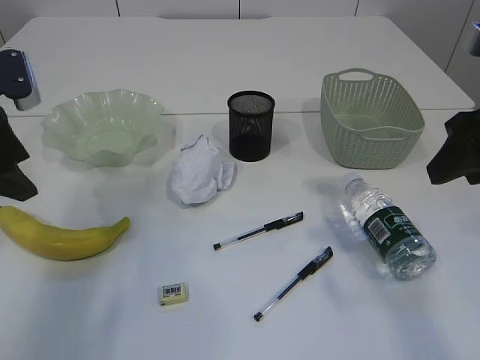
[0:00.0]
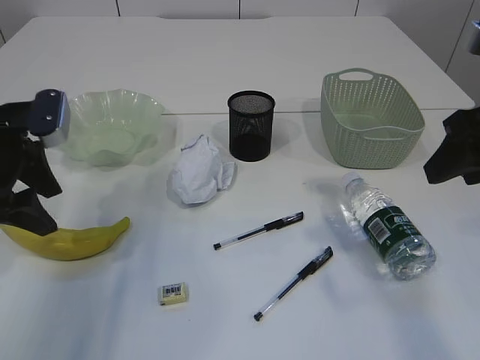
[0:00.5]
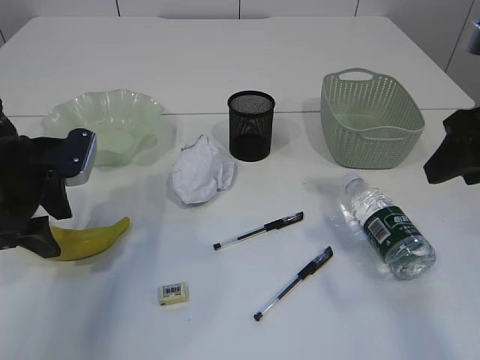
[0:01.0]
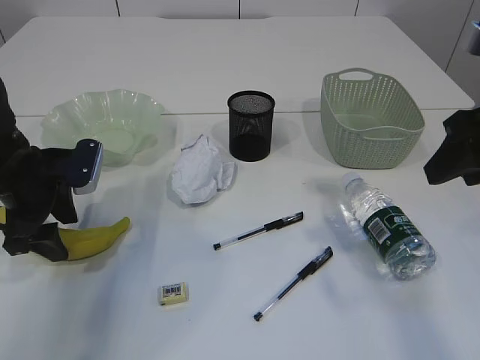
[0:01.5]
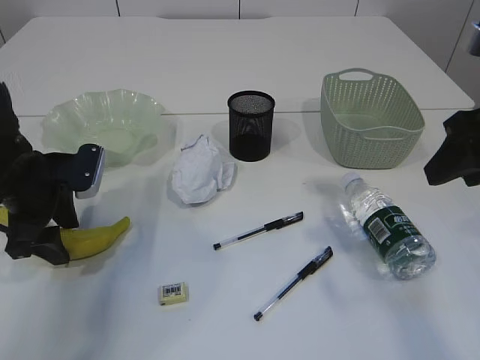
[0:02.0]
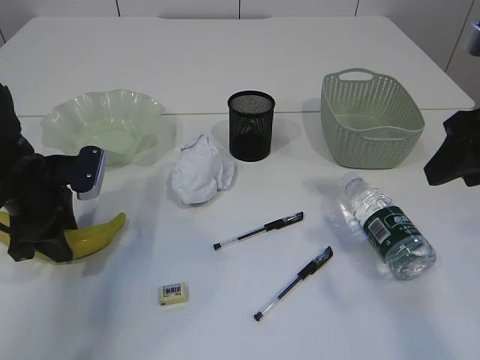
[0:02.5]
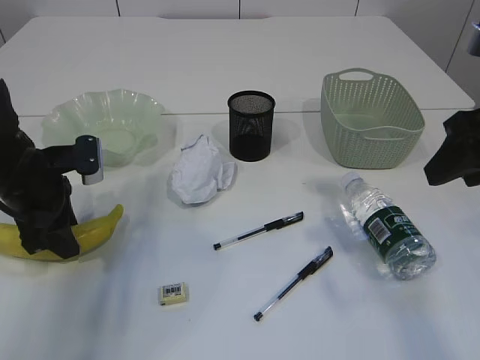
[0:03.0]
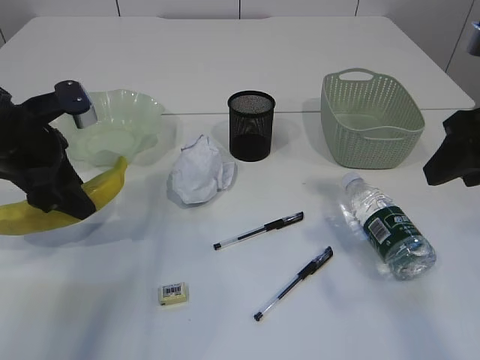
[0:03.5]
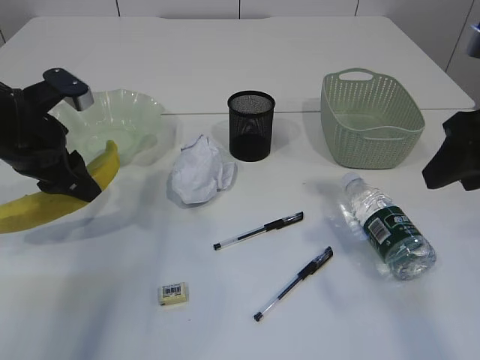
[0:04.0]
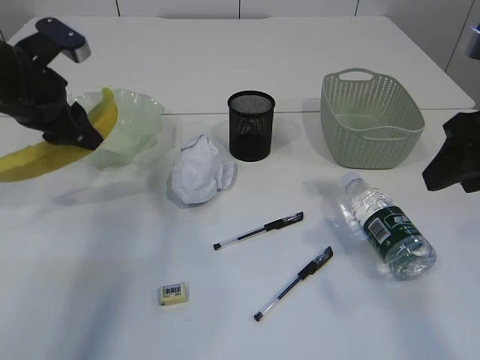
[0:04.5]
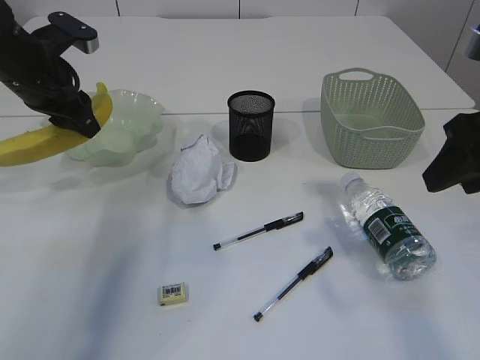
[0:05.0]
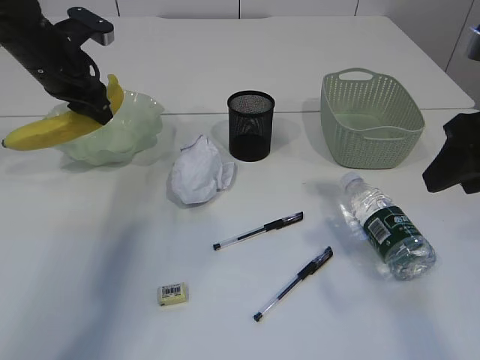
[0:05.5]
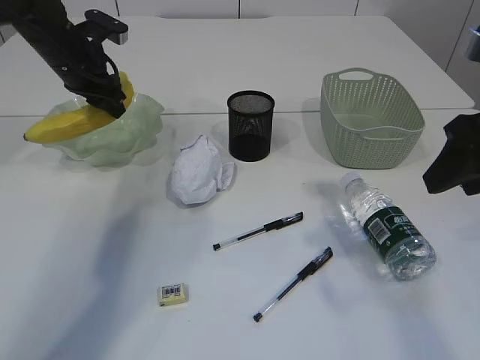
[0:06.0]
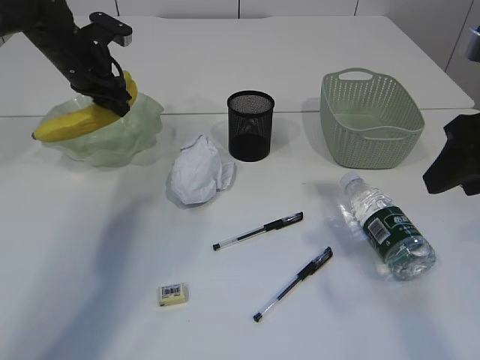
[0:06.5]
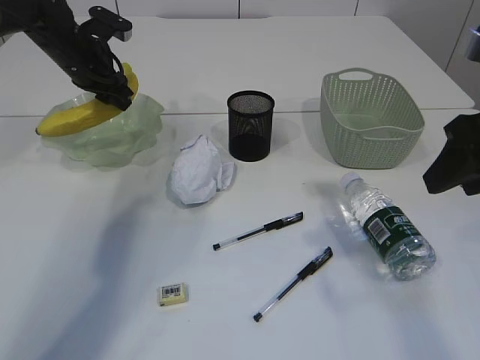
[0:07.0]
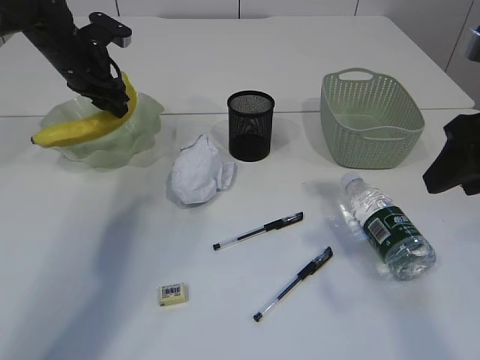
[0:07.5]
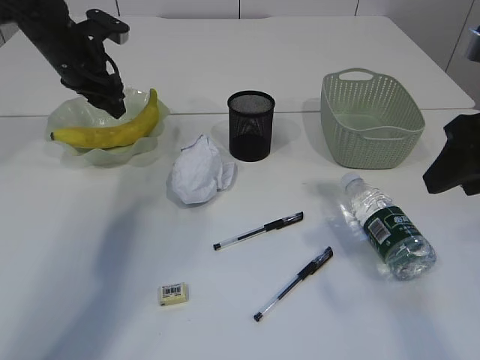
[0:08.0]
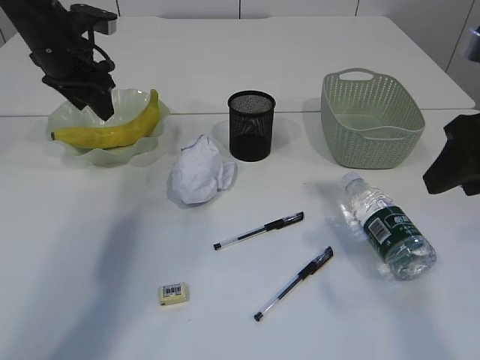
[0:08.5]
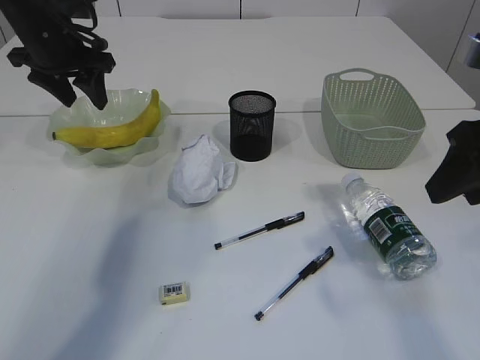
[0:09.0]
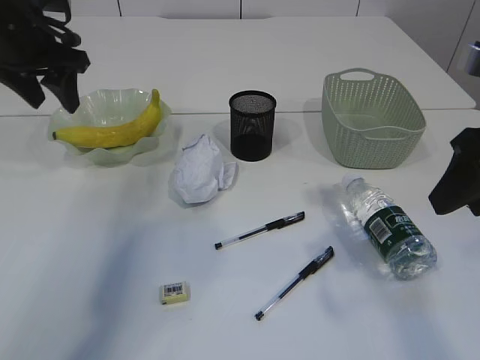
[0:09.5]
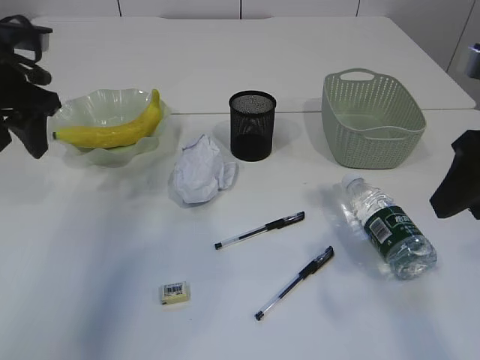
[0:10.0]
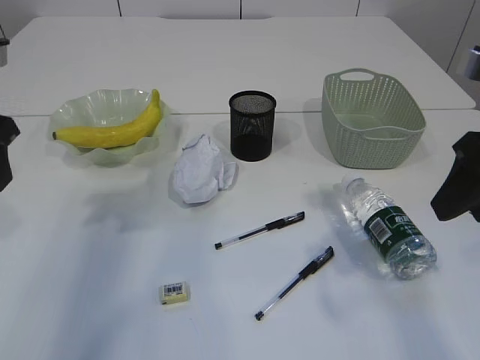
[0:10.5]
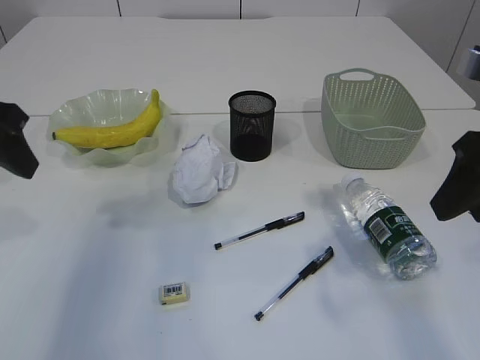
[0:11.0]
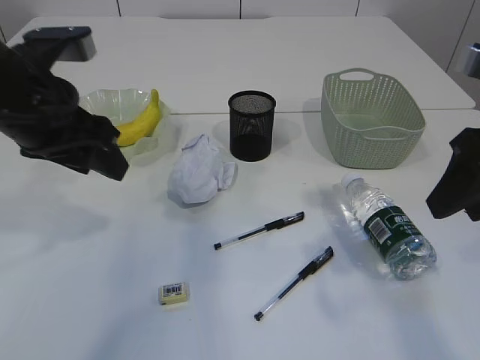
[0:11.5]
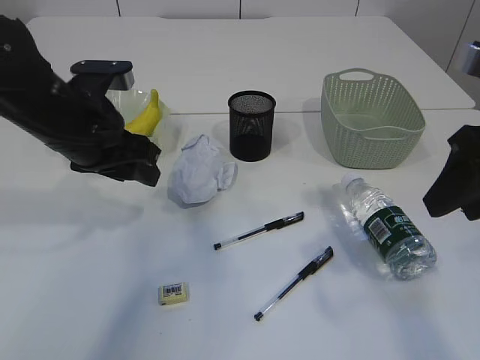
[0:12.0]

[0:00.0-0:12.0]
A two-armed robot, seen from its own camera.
Step, 0:04.5 to 0:09.0: Place the banana in the plate.
0:00.0 to 0:02.0: The left gripper heads downward, covering roughly 10 cm.
0:02.0 to 0:04.0: The left gripper goes approximately 5 cm upward.
0:04.0 to 0:06.0: The left gripper heads forward, covering about 15 cm.
0:06.0 to 0:08.0: The grippers move only a little.
0:08.0 to 0:10.0: The left gripper heads backward and upward, covering some 15 cm.
0:10.0 to 0:12.0: The left gripper heads to the right, downward and backward, covering roughly 10 cm.

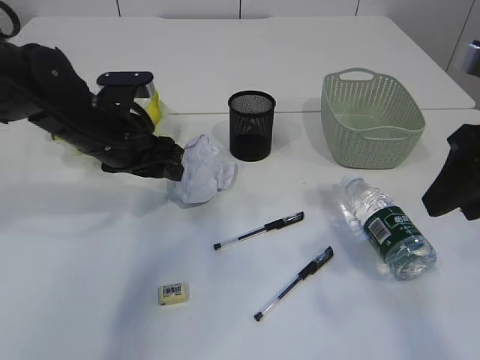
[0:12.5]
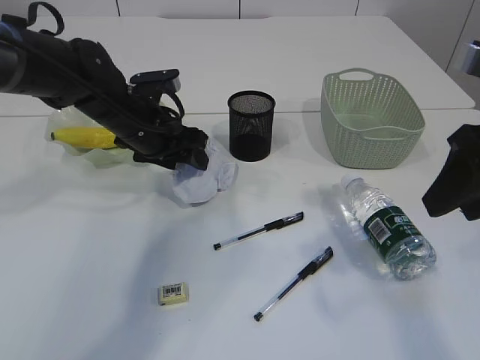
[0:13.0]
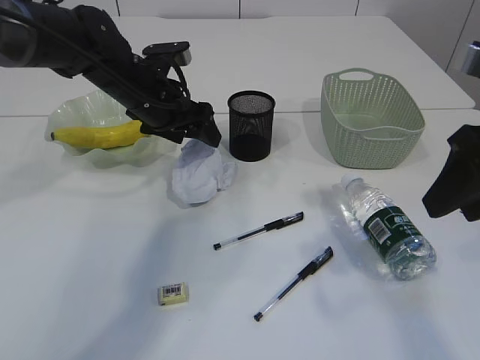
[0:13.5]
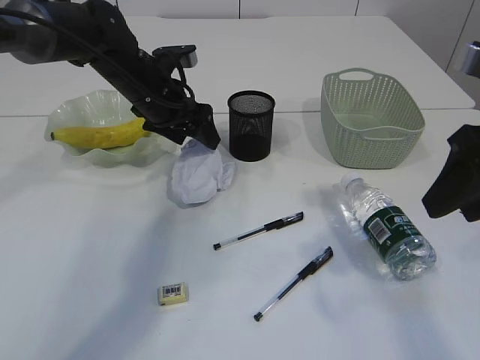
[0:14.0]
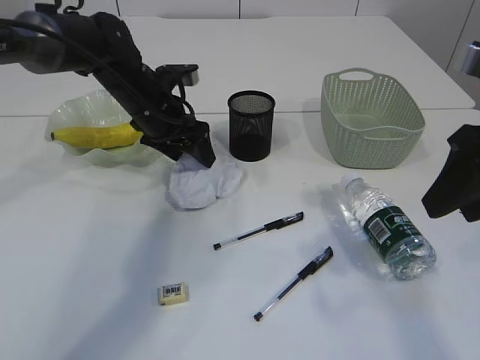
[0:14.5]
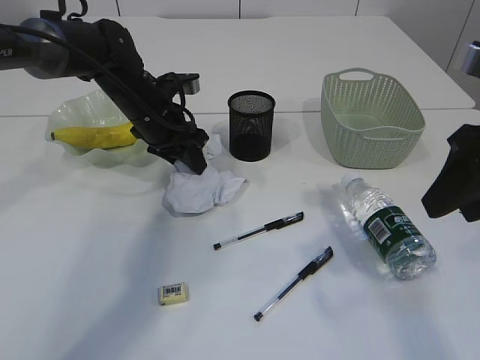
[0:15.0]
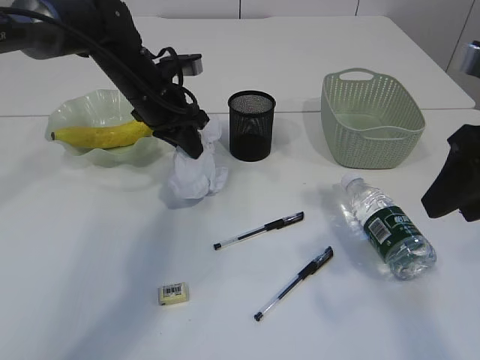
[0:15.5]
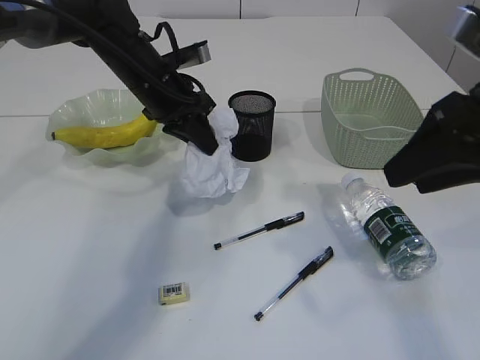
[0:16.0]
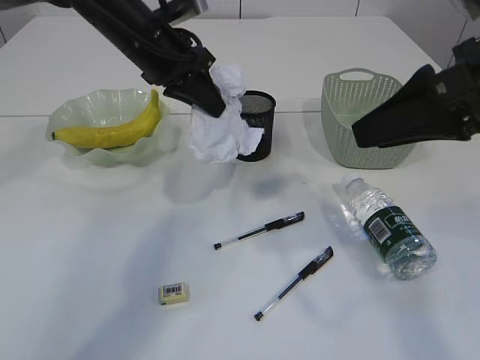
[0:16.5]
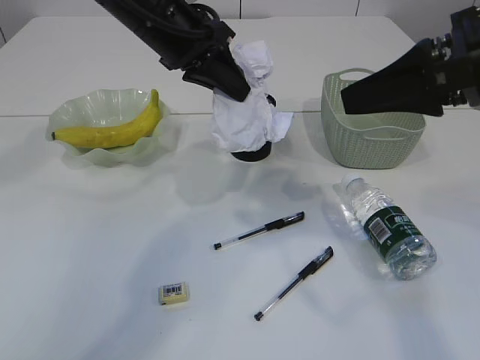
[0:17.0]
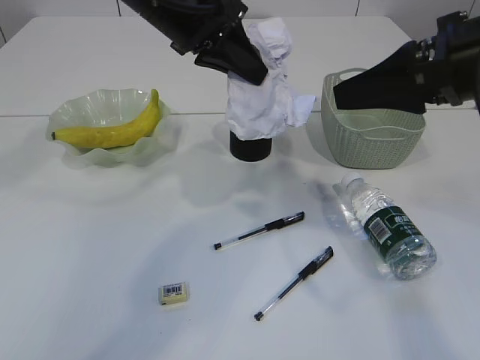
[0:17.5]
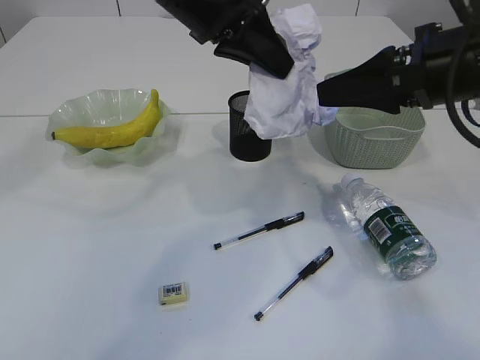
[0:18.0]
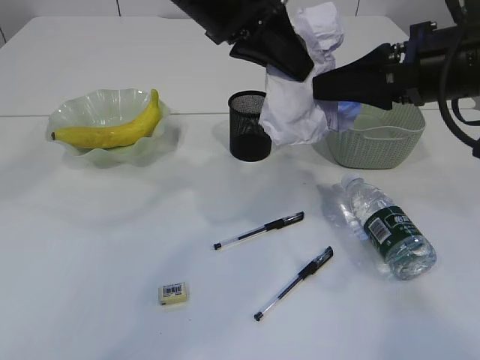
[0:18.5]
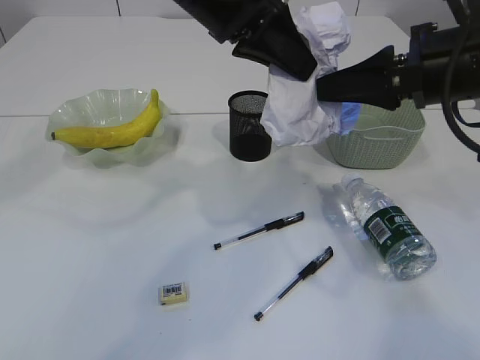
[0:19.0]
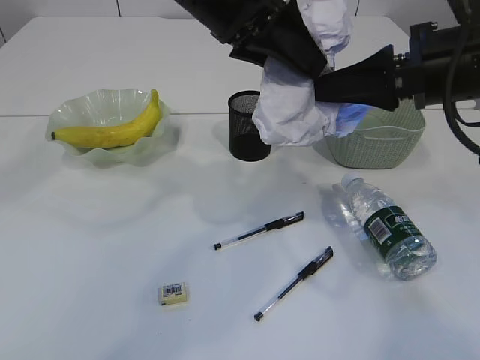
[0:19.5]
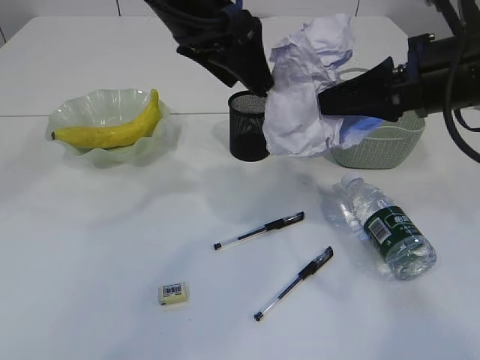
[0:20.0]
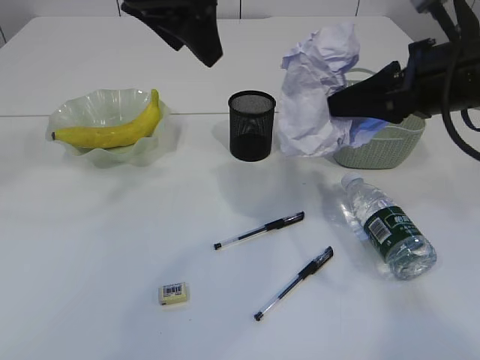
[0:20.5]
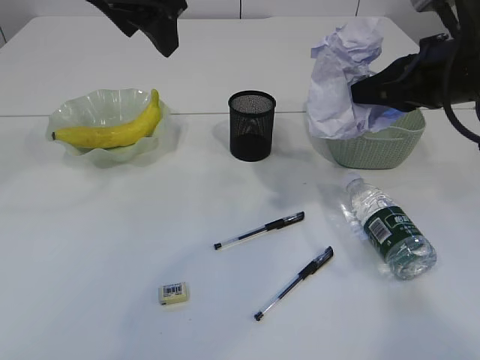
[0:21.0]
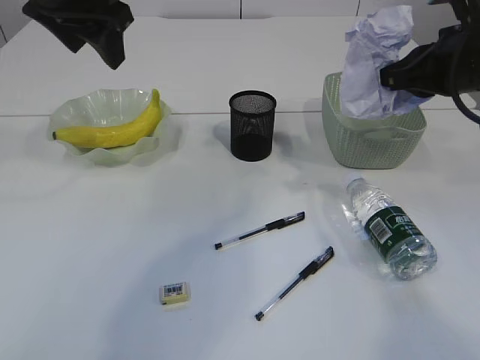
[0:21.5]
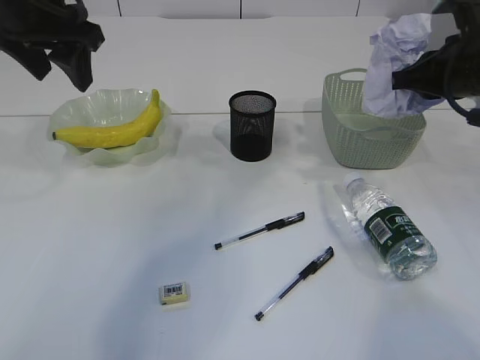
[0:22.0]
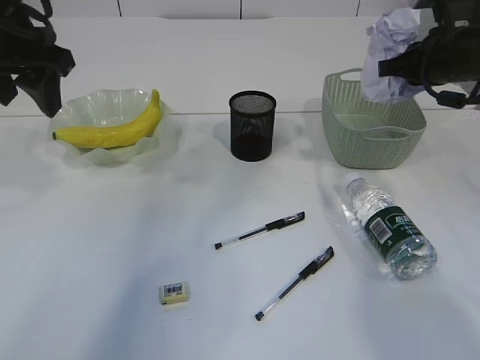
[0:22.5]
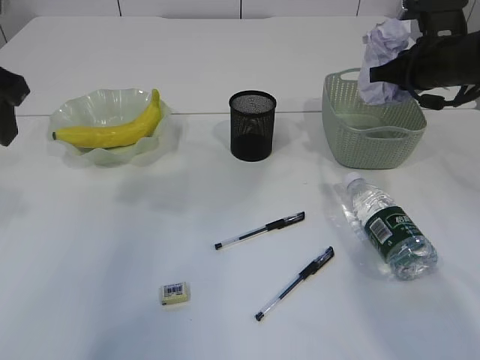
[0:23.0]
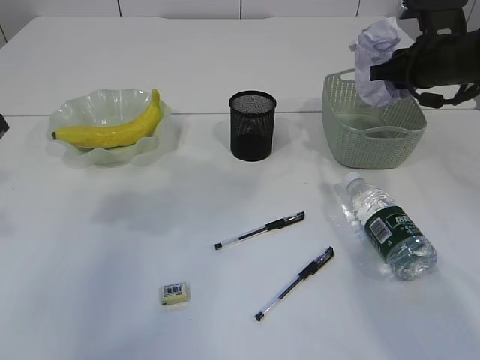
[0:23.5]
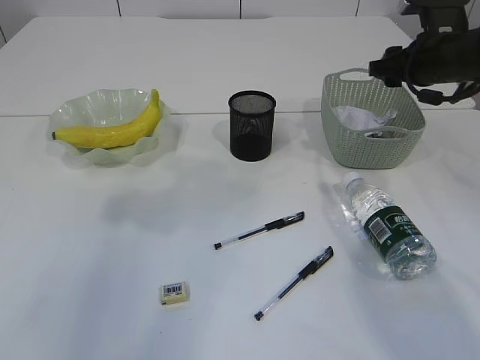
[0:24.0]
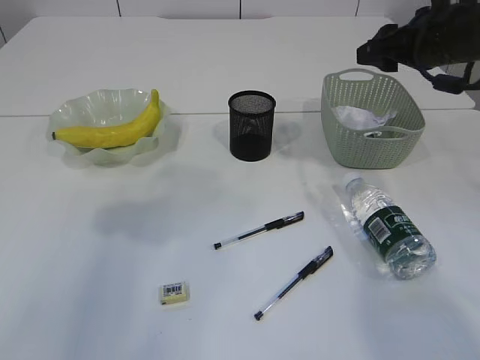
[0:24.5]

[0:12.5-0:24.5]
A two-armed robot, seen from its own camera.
Step, 0:12.5 to 0:16.0: Pick up the waste paper.
Step, 0:16.5 to 0:20.5: Hand over the waste paper.
0:12.5 to 0:14.5: The left gripper moves forward, about 10 cm.
0:14.5 to 0:16.5: The left gripper shifts about 10 cm upward, and closes up.
0:16.5 to 0:18.5: The right gripper travels forward by approximately 5 cm. Meanwhile the left gripper goes approximately 15 cm upward, to the right and backward.
0:18.5 to 0:20.5: The right gripper closes; the left gripper travels to the left by approximately 5 cm, and opens.
0:20.5 to 0:22.5: The left gripper heads to the left, covering roughly 15 cm; the right gripper travels forward and to the right by roughly 10 cm.
0:22.5 to 0:24.5: The right gripper opens, while the left gripper shifts some 10 cm backward.

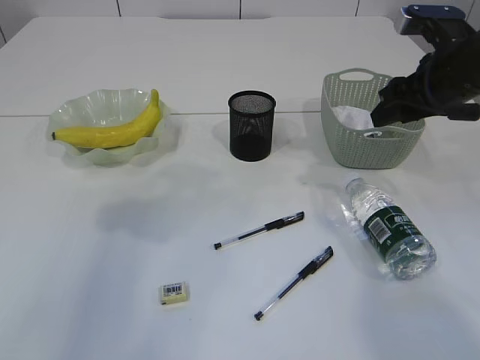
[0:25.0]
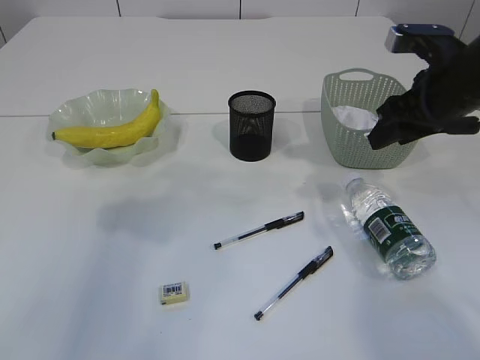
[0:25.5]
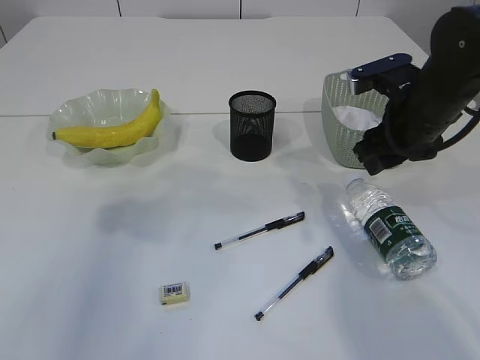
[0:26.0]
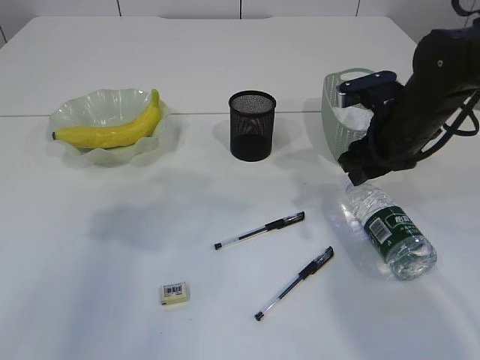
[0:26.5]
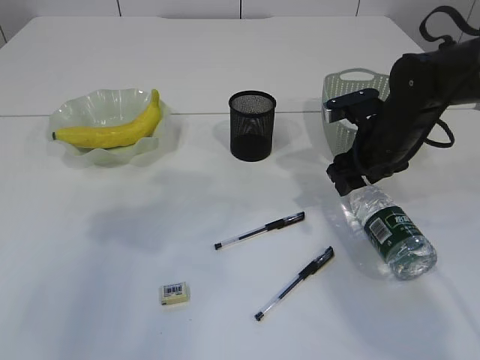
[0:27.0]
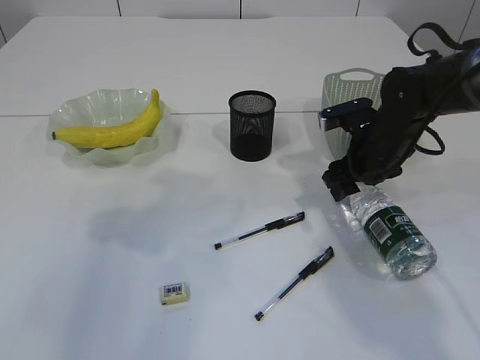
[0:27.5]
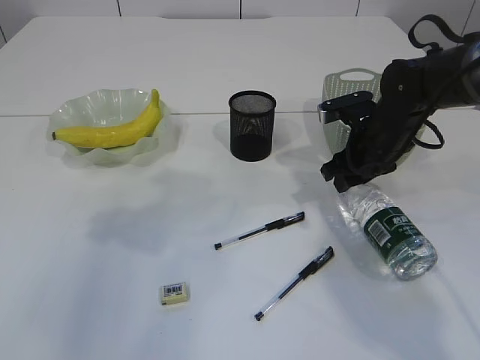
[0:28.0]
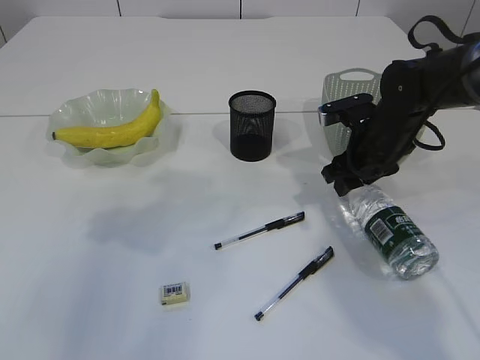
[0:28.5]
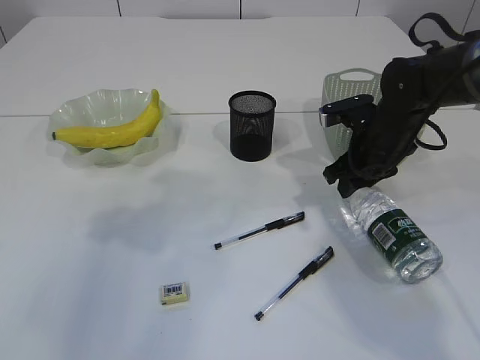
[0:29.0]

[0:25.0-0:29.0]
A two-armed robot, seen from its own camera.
0:25.0 to 0:27.0: The right gripper heads downward, covering some 10 cm.
0:27.0 to 0:29.0: The right gripper closes its fingers.
